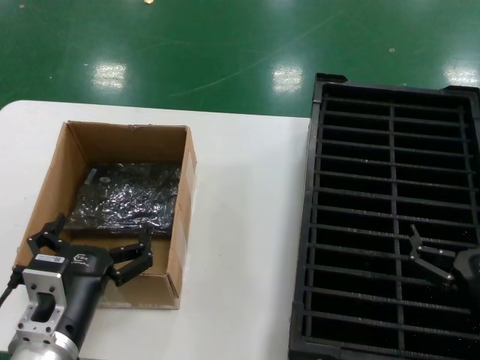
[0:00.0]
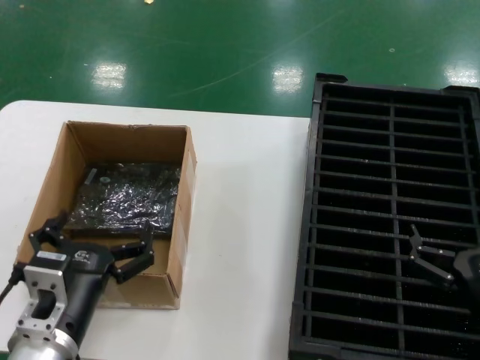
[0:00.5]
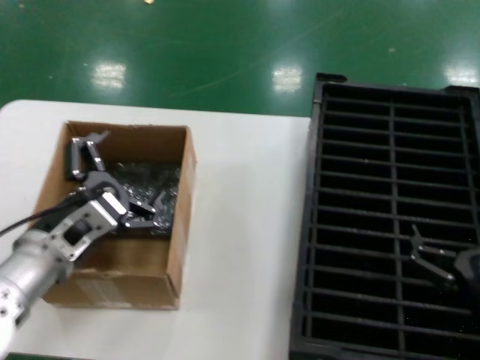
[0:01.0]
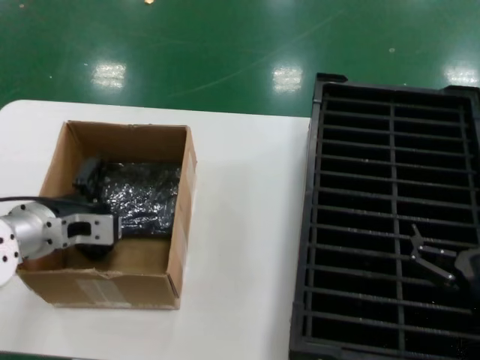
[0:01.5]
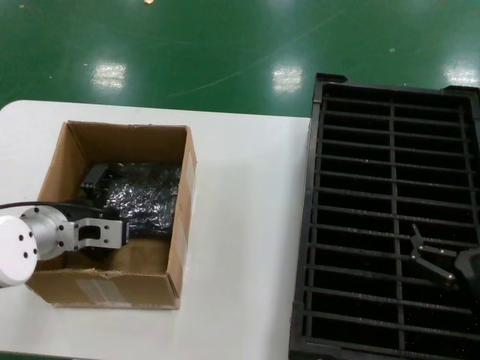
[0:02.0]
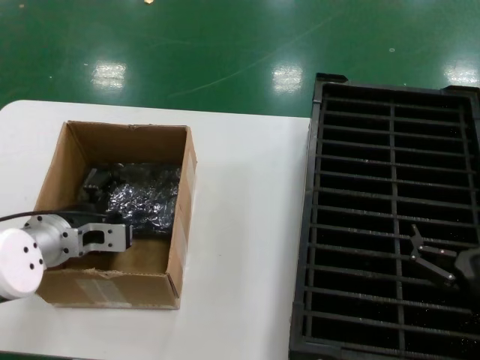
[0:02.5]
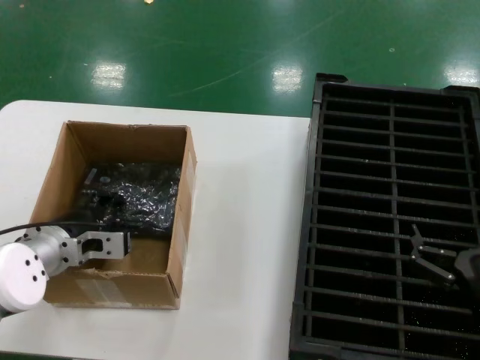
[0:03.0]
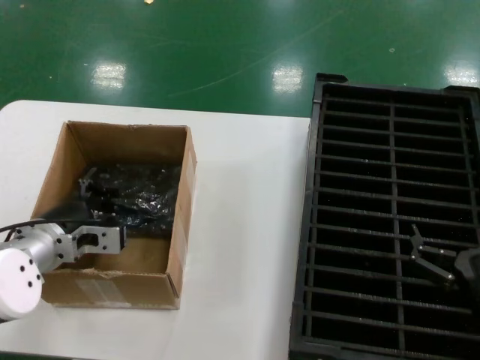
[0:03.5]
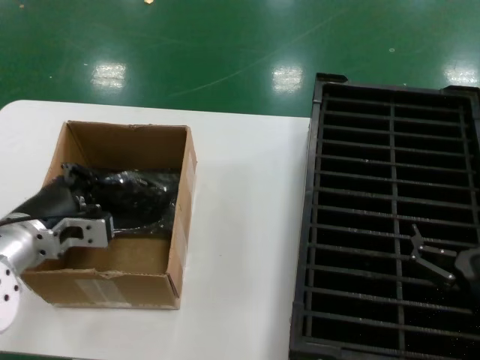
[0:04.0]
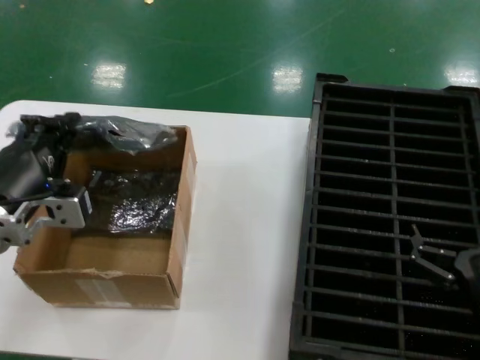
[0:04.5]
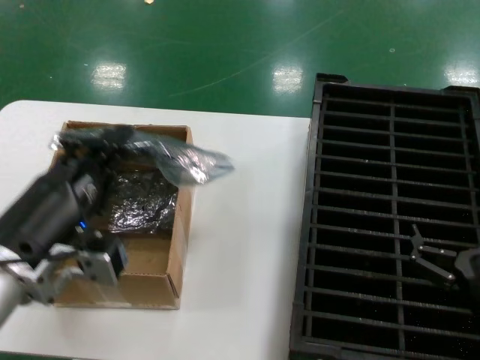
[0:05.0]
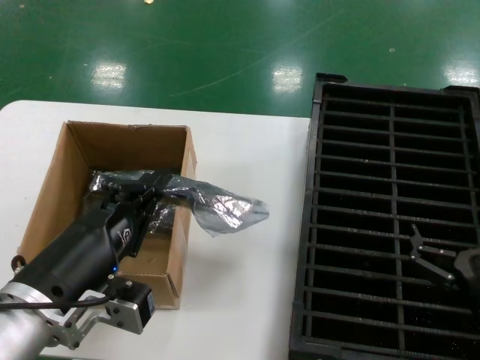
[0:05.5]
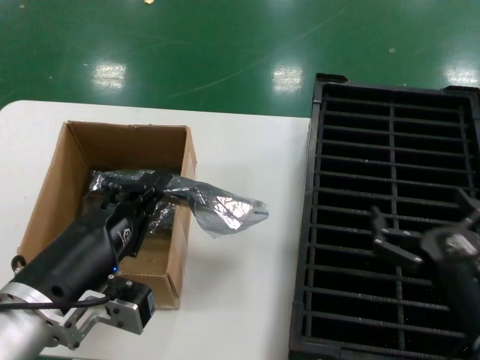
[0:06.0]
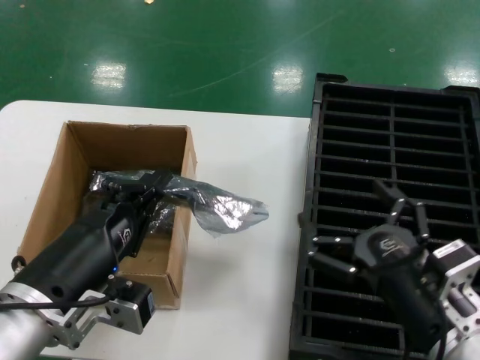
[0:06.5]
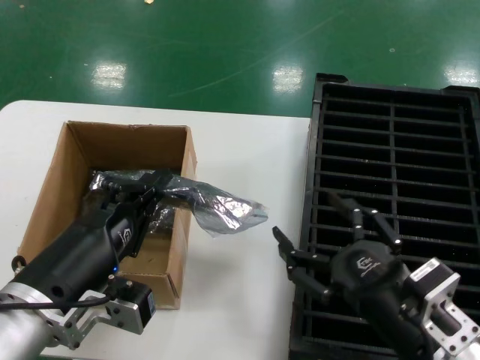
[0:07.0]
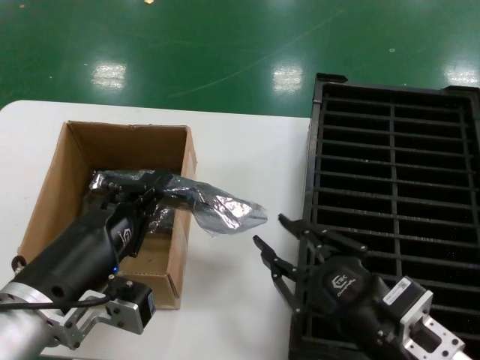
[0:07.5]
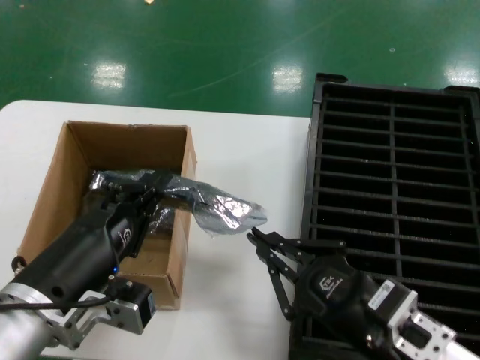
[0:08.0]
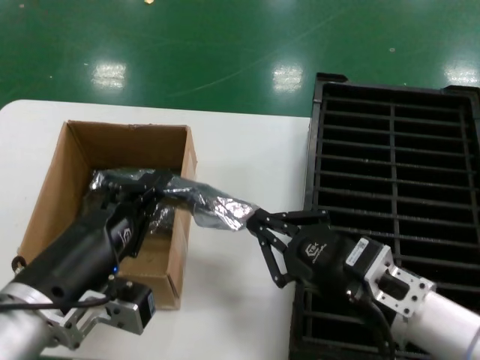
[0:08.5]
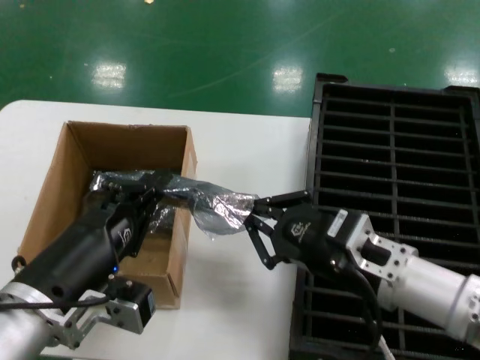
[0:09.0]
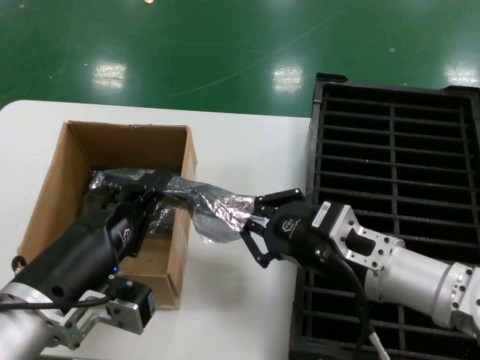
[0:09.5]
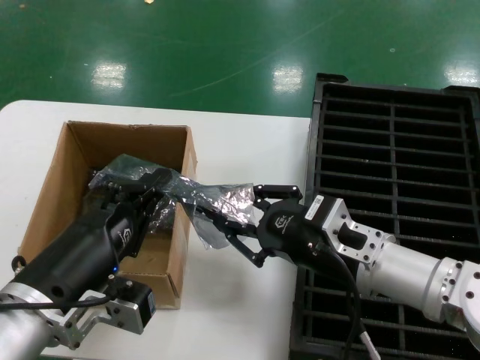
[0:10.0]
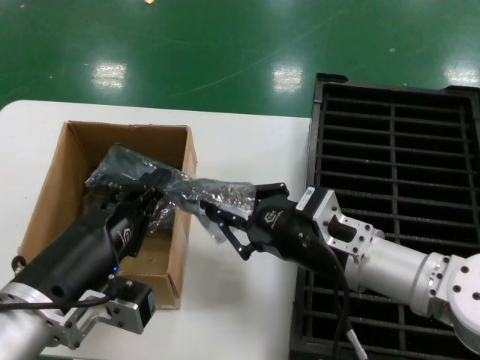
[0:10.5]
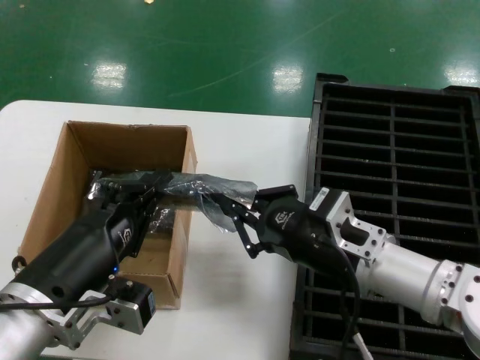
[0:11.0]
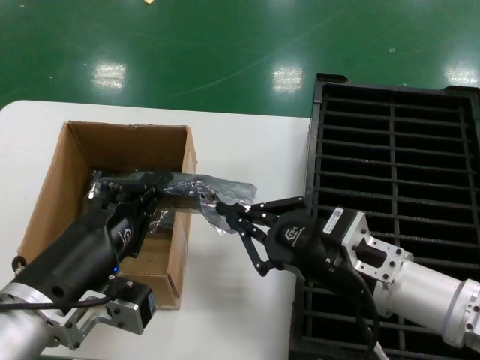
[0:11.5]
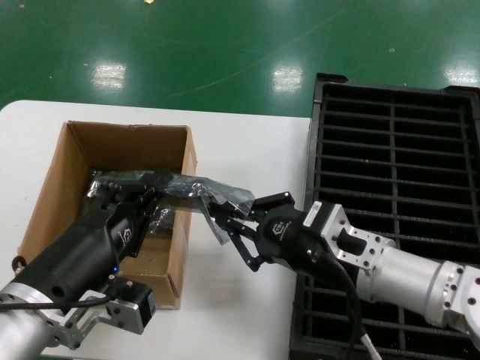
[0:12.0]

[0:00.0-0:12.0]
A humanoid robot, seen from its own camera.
Task of the whole recording: take out graphics card from box remove packaging put into black container.
Step, 0:00.0 to 0:03.0: Grasp the bag.
Step, 0:03.5 to 0:05.0: Lift the bag.
0:00.0 to 0:02.0: The left hand travels forward, to the left and upward by approximately 20 cm.
0:02.0 to 0:04.0: The hands make only small movements.
0:04.0 to 0:06.0: The left hand heads backward and to the right, covering roughly 15 cm.
0:06.0 to 0:08.0: The right hand moves to the left, about 5 cm.
0:08.0 to 0:10.0: The right hand shifts approximately 10 cm forward.
0:10.0 to 0:12.0: The hands stay close to where they were, moving slightly.

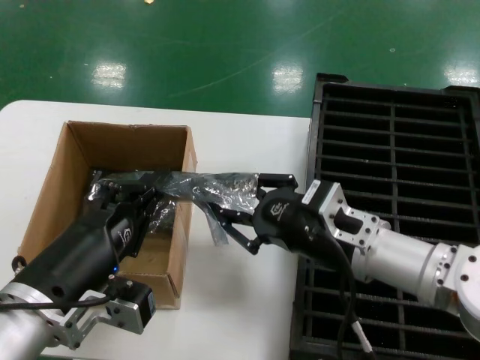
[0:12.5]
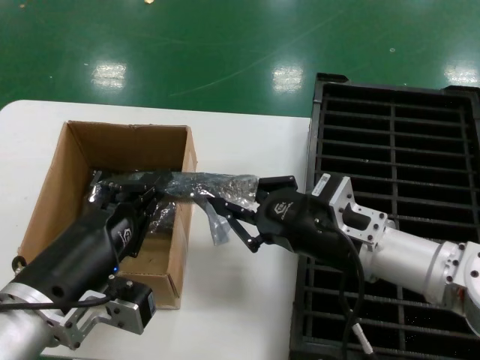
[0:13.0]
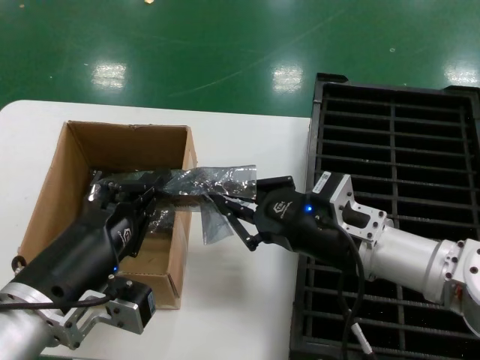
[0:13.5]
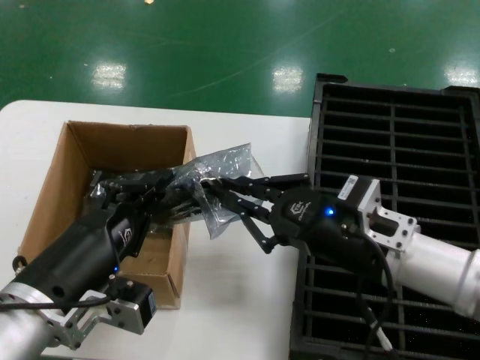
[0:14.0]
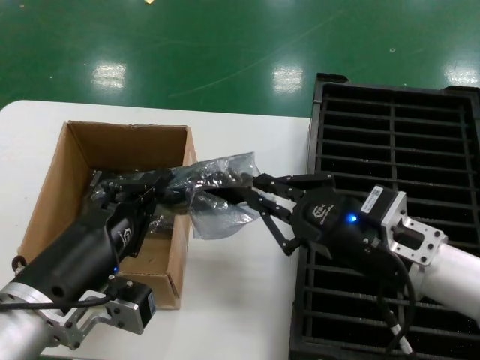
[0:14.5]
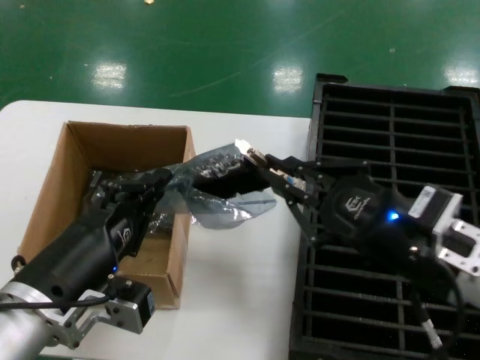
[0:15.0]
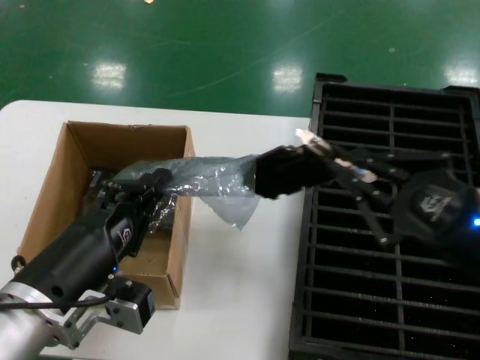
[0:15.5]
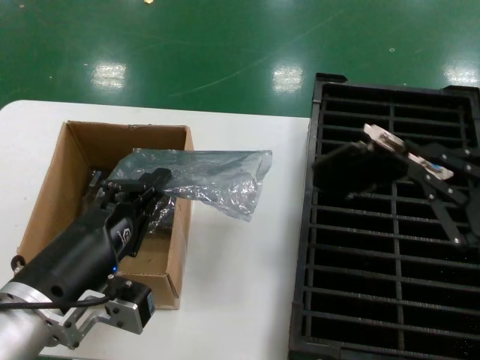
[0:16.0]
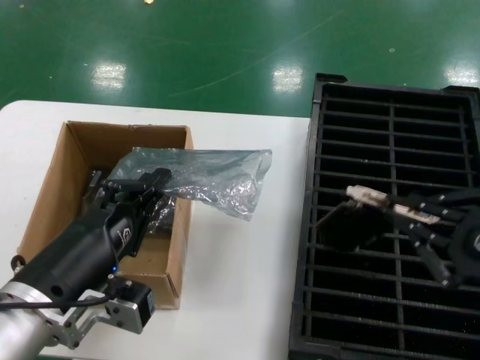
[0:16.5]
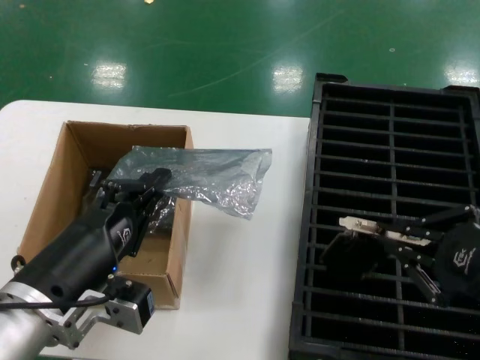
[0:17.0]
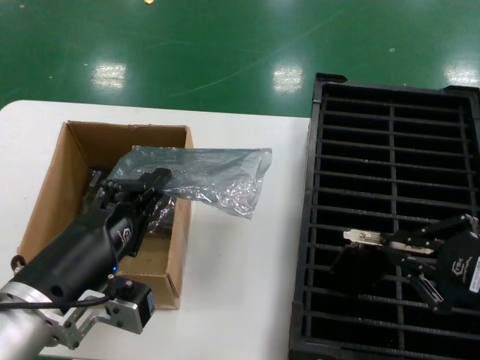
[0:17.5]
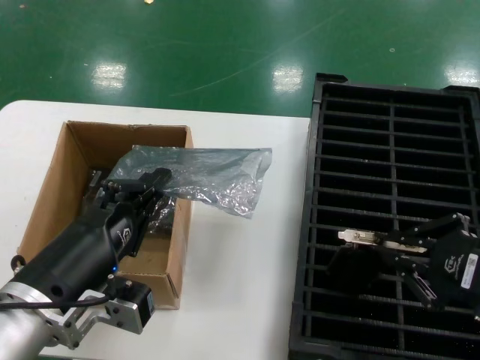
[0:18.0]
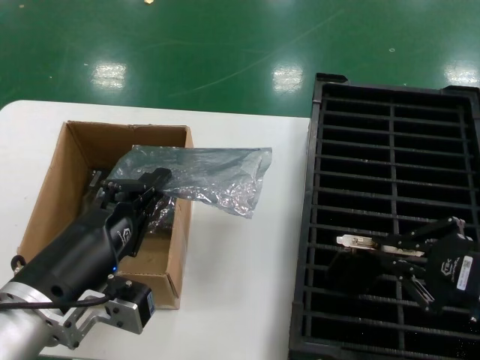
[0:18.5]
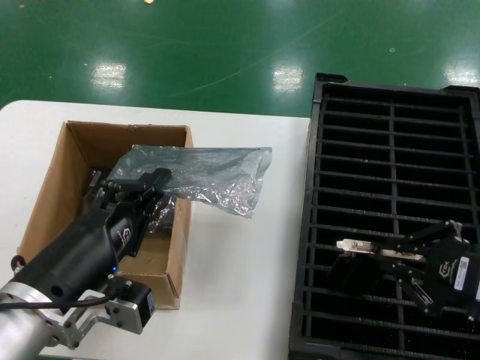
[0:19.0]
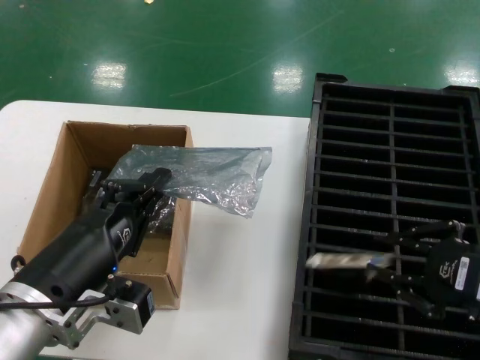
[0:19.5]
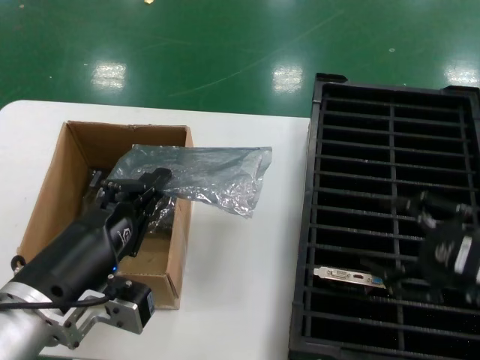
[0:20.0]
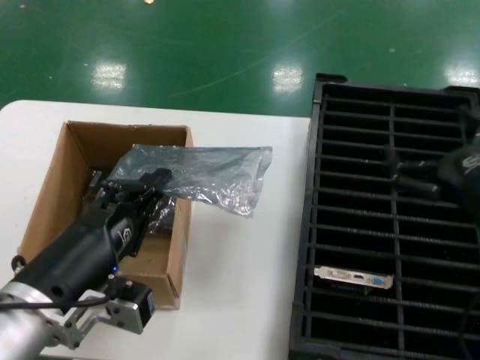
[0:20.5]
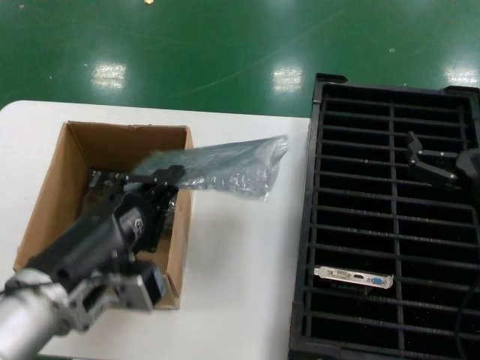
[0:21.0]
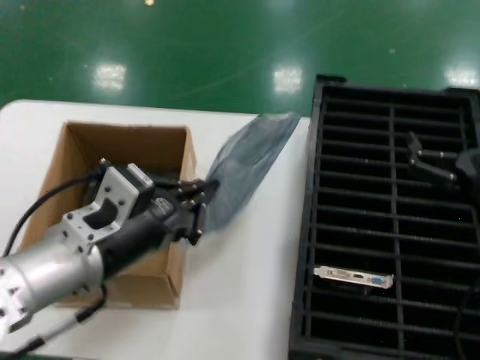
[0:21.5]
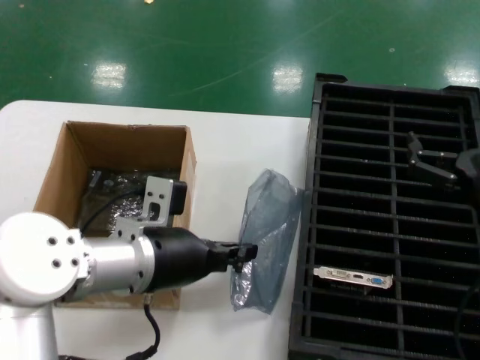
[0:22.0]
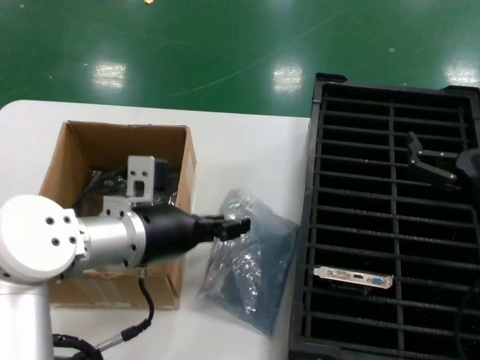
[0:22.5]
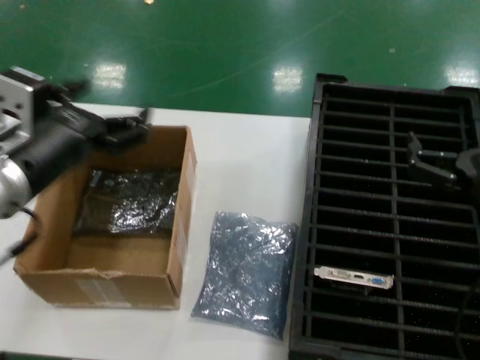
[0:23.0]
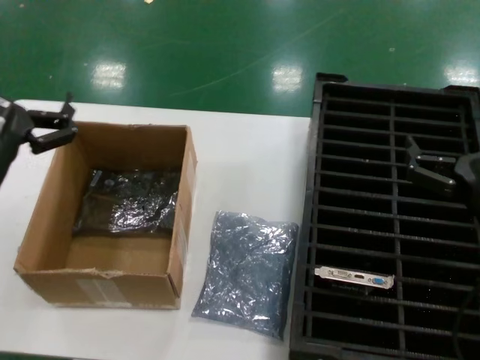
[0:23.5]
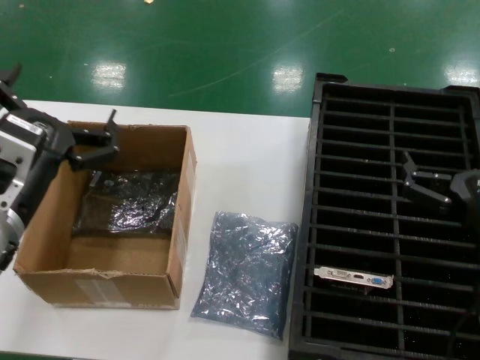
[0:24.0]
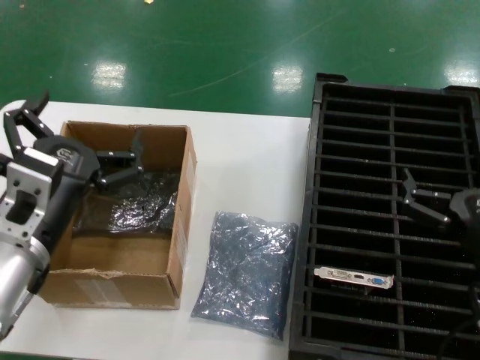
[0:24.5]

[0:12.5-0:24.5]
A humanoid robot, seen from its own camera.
Task of the whole recording: take out graphics card from box remove packaging put into black container.
Step, 0:12.5 to 0:15.5: Take out the hard disk of the bag.
Step, 0:16.0 to 0:19.5: Place the hard disk in the hard disk enclosure.
Step, 0:20.0 to 0:23.5: Place the down the bag.
0:12.5 to 0:14.5: The right hand shifts by some 5 cm.
0:14.5 to 0:16.5: The right hand travels to the right, backward and upward by roughly 20 cm.
0:16.5 to 0:18.5: There are only small adjustments of the hands.
0:18.5 to 0:20.5: The right hand shifts some 5 cm forward.
0:20.5 to 0:22.5: The left hand goes some 15 cm forward.
0:22.5 to 0:24.5: The right hand shifts approximately 5 cm downward; the left hand moves backward and to the left, roughly 10 cm.

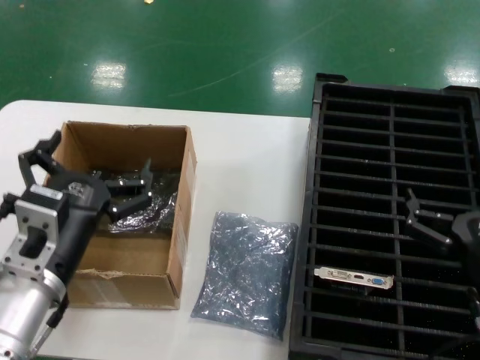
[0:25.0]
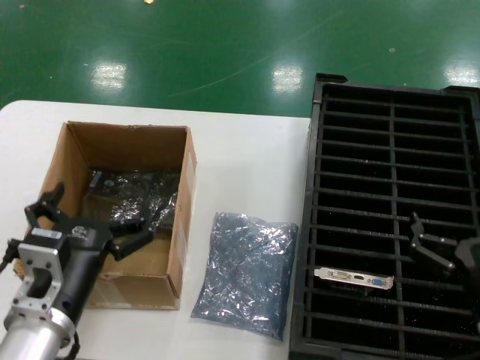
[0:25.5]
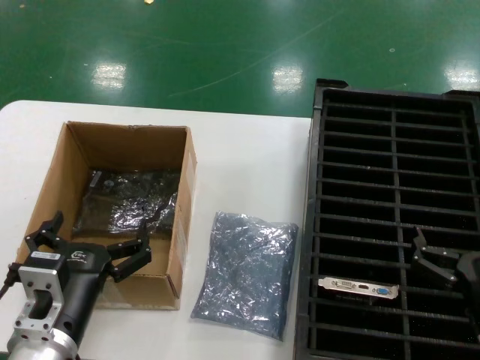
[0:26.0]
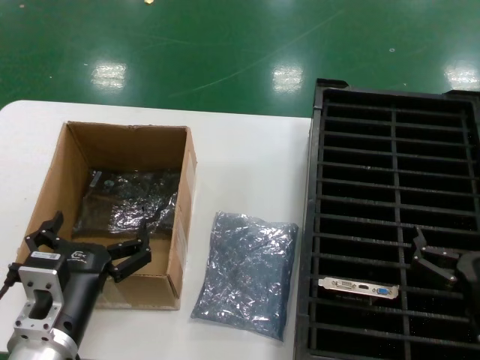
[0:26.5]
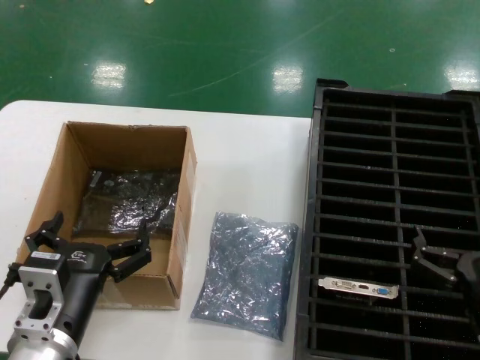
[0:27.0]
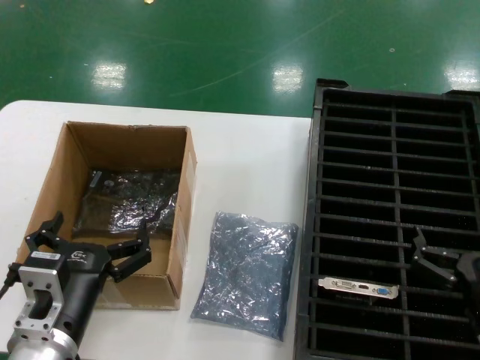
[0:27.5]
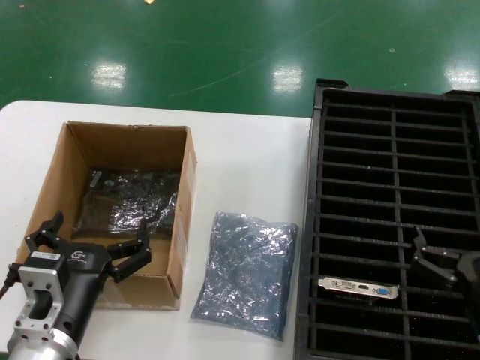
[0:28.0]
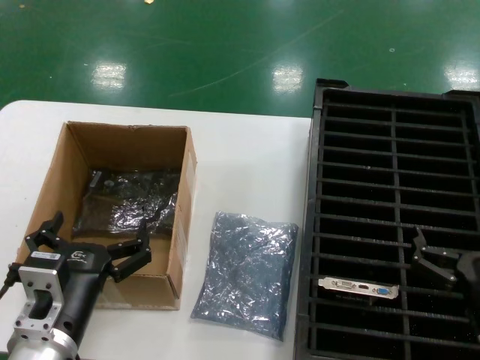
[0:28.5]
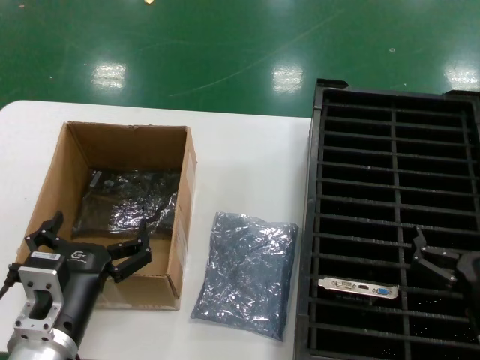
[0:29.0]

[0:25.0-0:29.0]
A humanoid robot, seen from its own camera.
Task of the whole recording: take out graphics card from box remove packaging put into black container.
0:25.0 to 0:27.0: The left hand moves downward, some 5 cm.
0:27.0 to 0:29.0: Both hands stay put.
